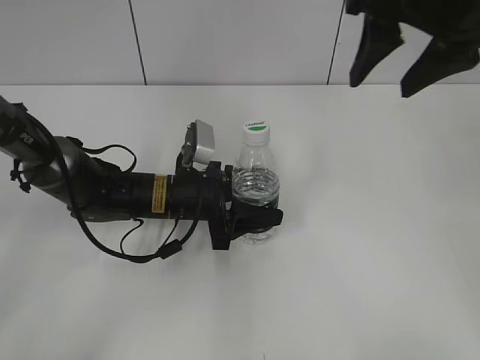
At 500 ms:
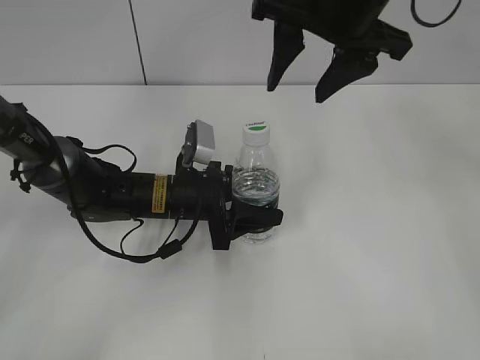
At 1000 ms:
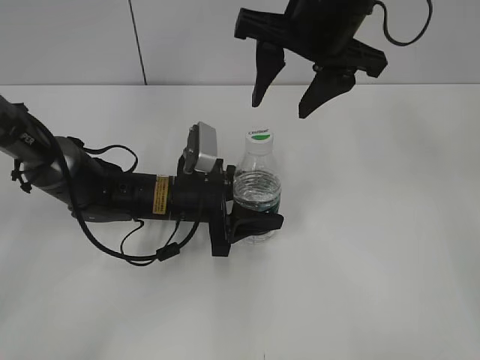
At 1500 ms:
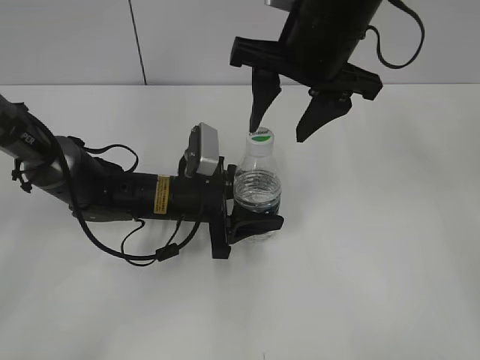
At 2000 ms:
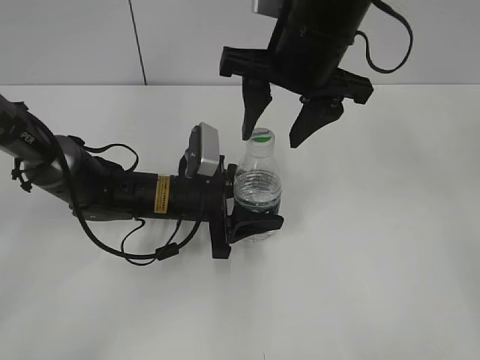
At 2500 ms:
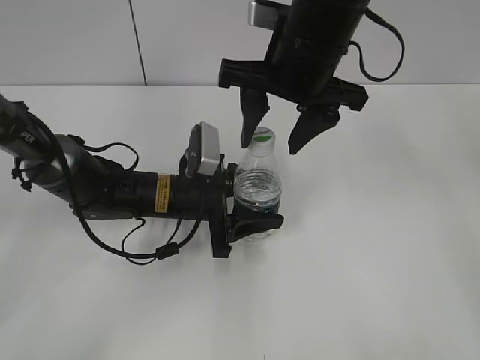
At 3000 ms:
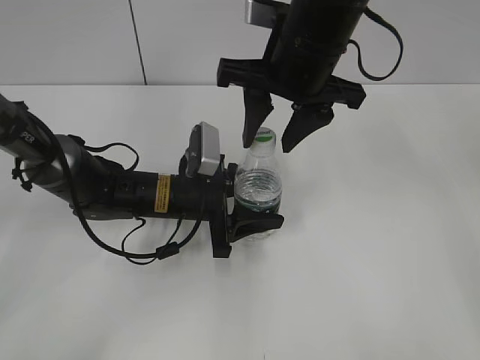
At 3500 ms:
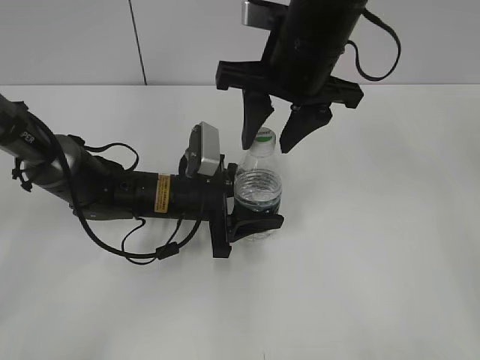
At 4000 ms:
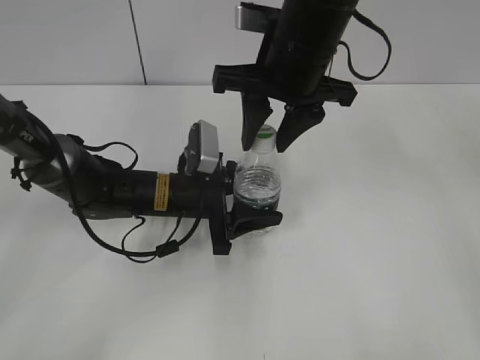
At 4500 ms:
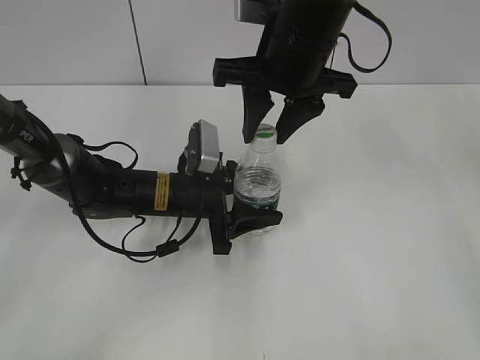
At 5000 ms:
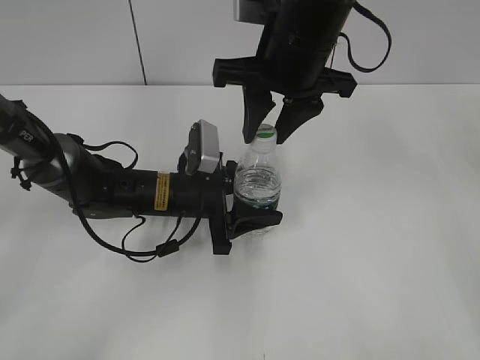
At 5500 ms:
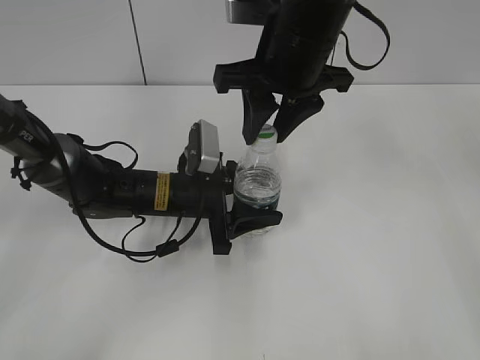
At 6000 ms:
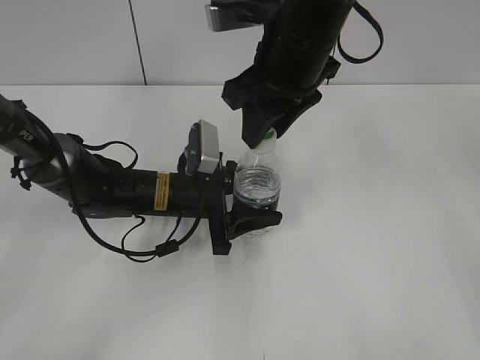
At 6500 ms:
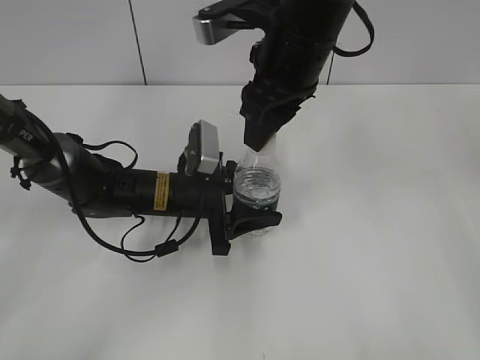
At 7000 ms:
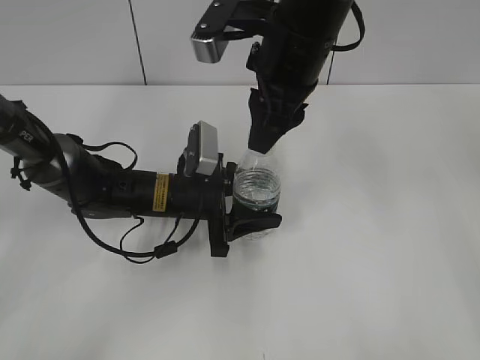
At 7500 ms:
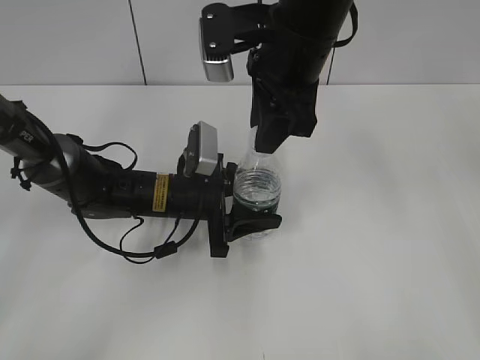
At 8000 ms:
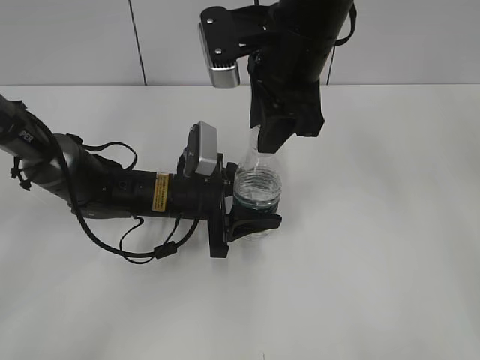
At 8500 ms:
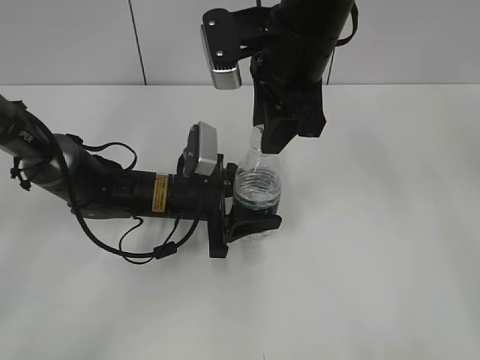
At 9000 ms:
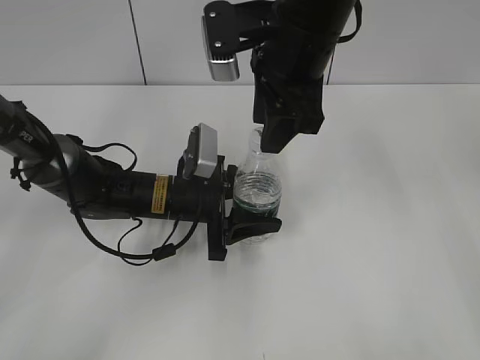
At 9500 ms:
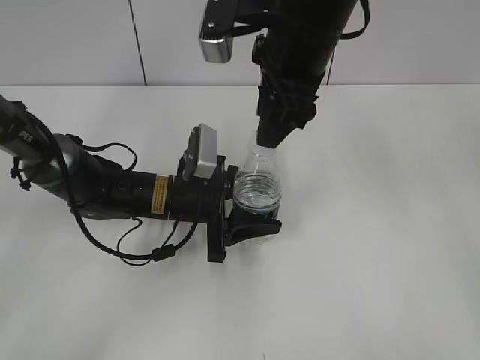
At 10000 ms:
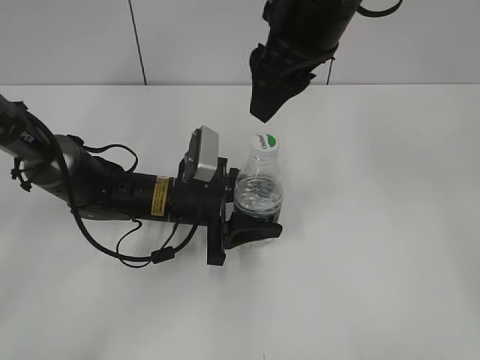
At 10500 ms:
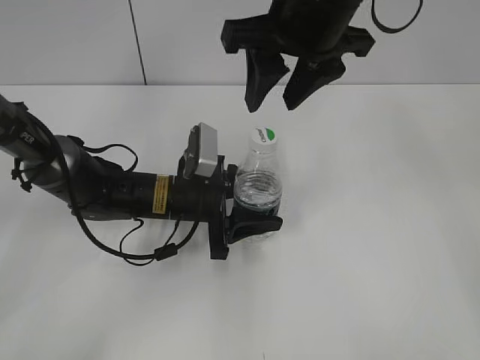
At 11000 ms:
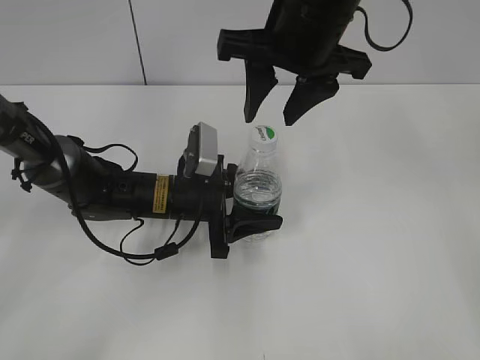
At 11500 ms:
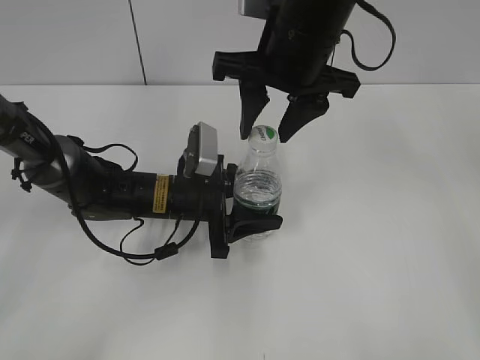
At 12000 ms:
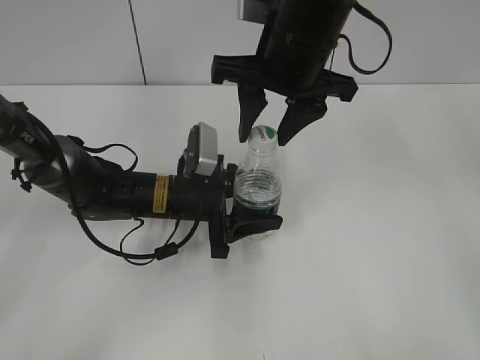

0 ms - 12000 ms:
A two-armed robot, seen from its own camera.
0 ms - 2000 ms: The right gripper moves to the left and downward, some 10 cm.
2000 ms - 4000 ms: The right gripper closes.
8000 ms - 10000 ms: The right gripper opens its fingers.

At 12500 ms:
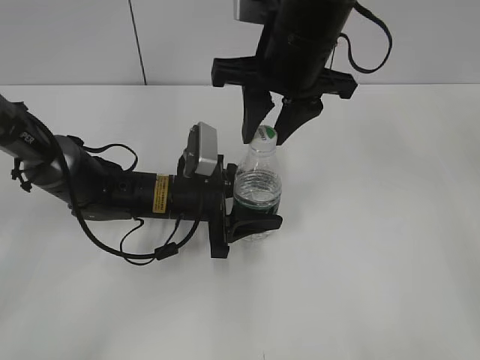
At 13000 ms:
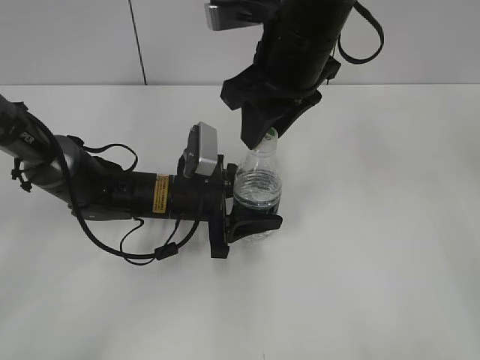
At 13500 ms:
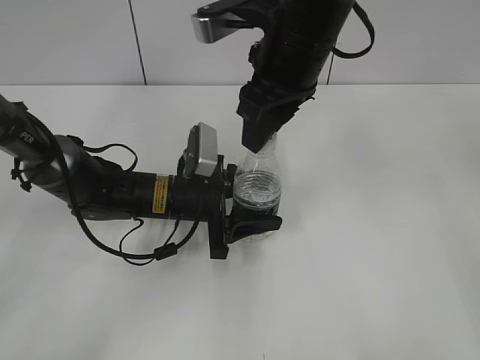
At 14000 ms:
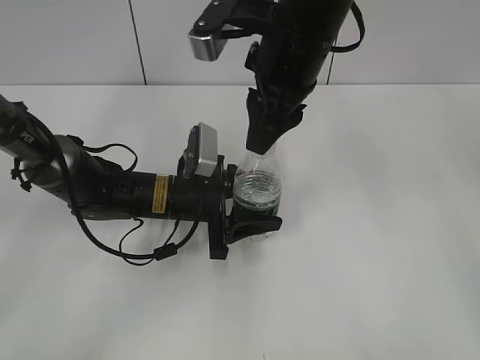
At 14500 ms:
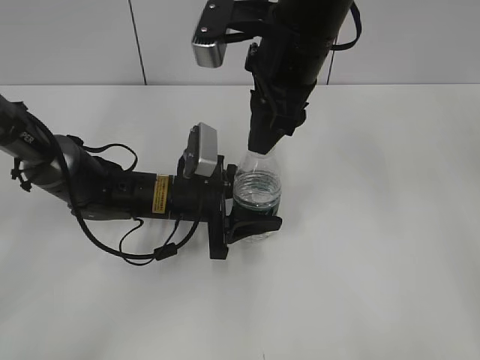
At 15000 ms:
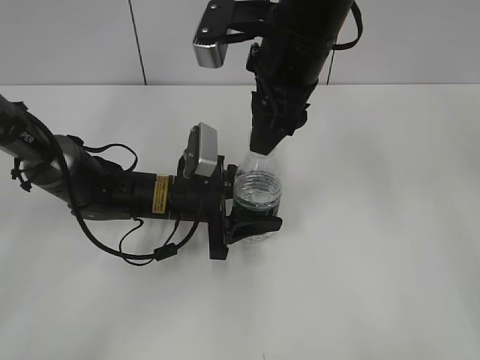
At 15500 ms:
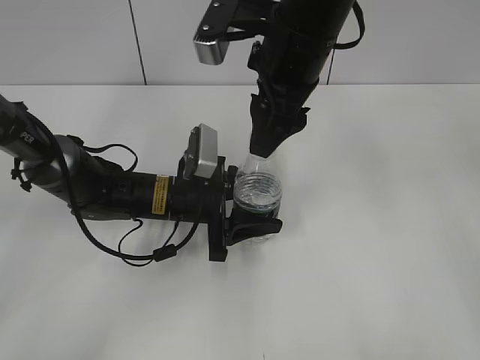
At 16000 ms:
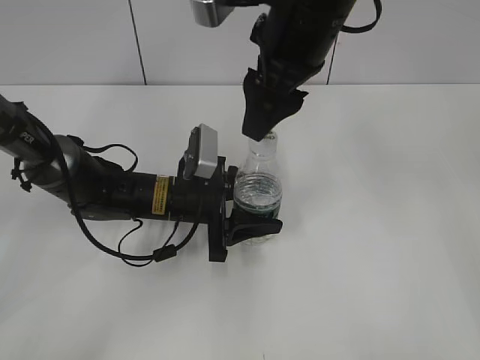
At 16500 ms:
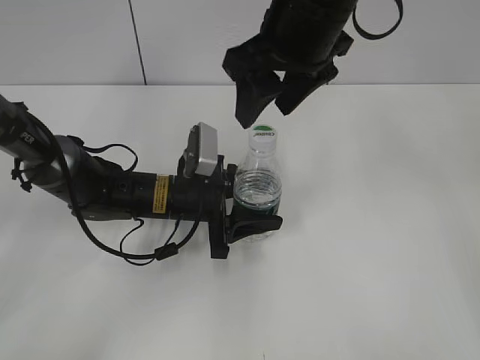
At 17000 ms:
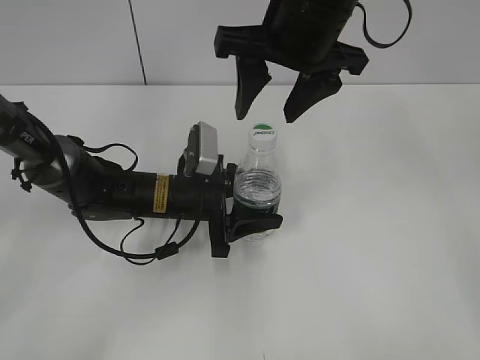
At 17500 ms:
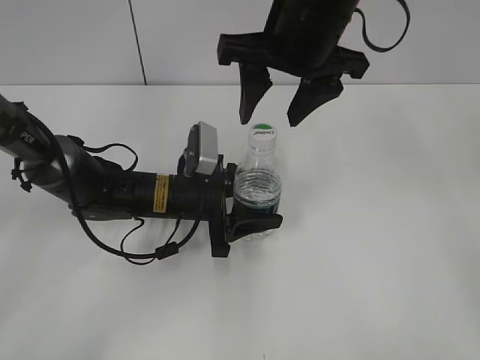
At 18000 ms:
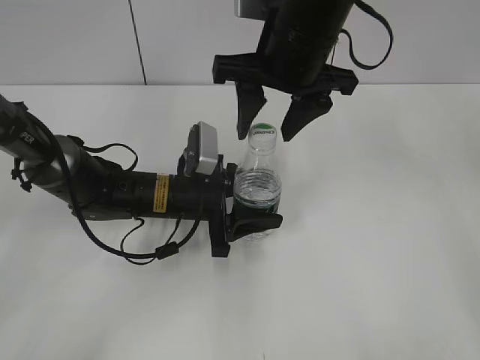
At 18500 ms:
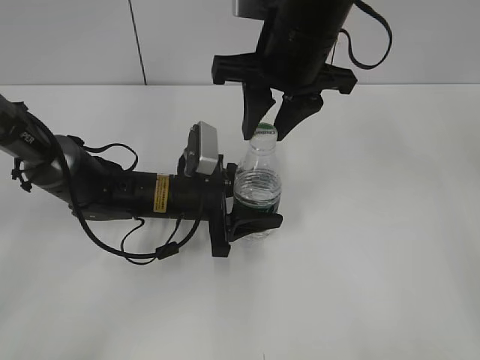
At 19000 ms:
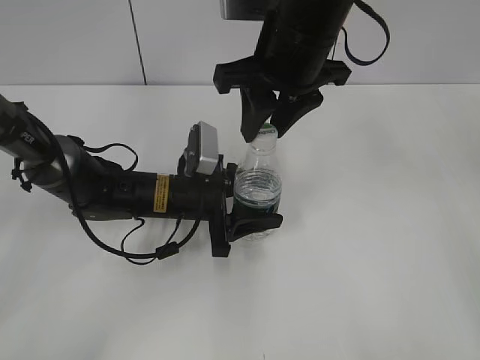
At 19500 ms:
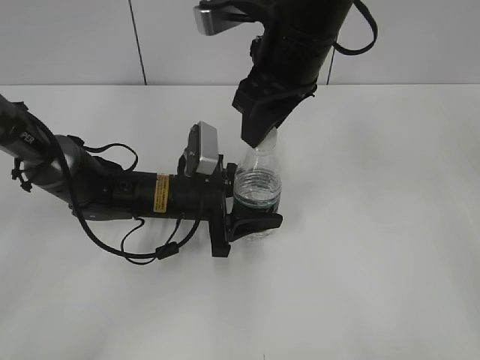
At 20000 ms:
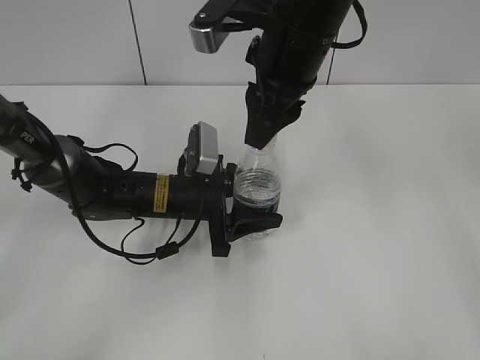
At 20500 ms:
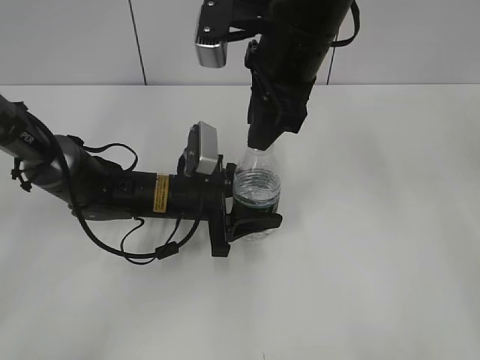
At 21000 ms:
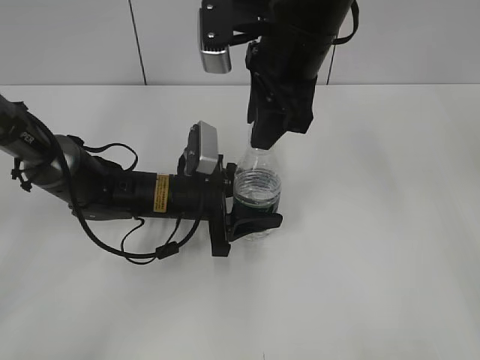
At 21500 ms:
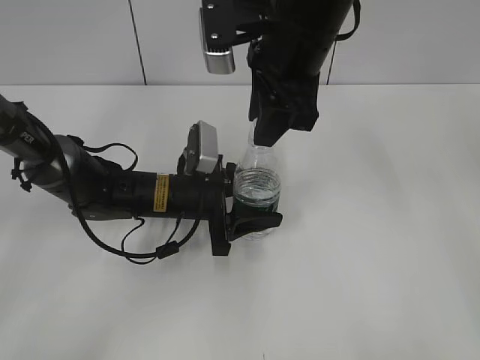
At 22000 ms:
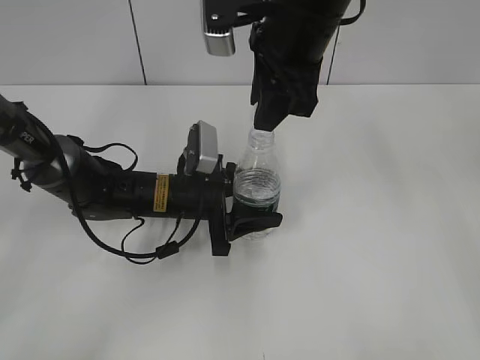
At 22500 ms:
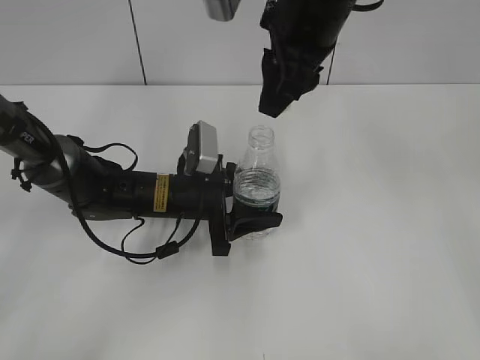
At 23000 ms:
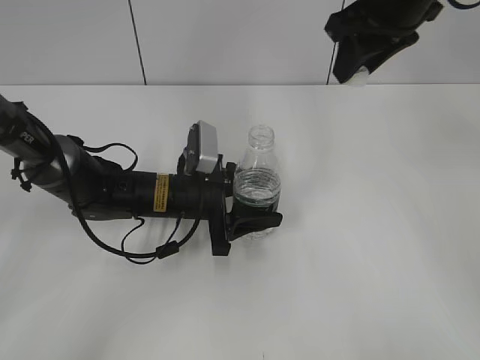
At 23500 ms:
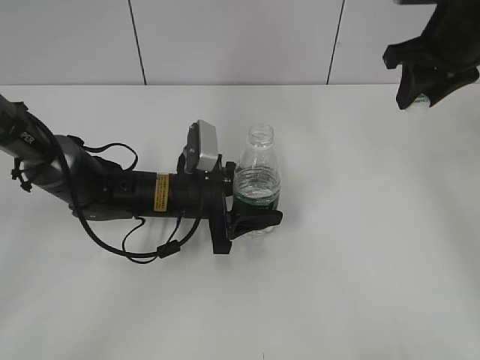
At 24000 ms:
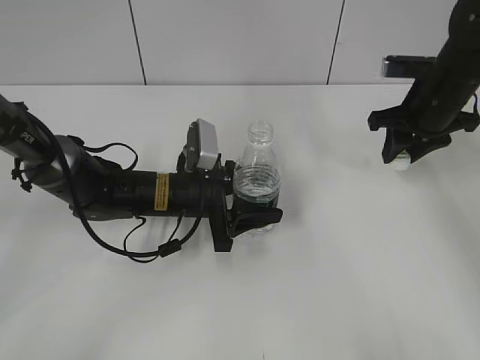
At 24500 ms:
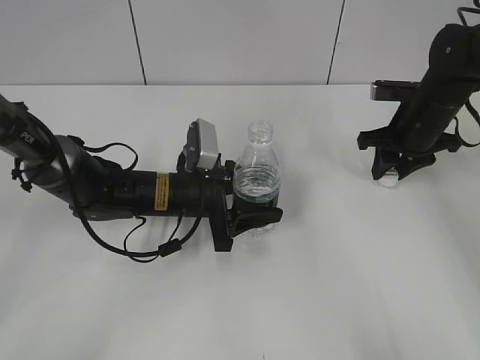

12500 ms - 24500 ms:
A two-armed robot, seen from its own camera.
Step, 12500 ms - 22000 ms: Unscrew the bottle cap with the right gripper while holding the bottle with the left gripper.
14500 ms - 16500 ms: The right gripper opens.
16500 ms - 18500 ms: The right gripper closes its fingers.
20500 ms - 22500 ms: The grippers make only small movements.
22500 ms - 24500 ms: The right gripper heads downward, to the right and forward, covering some 30 cm.

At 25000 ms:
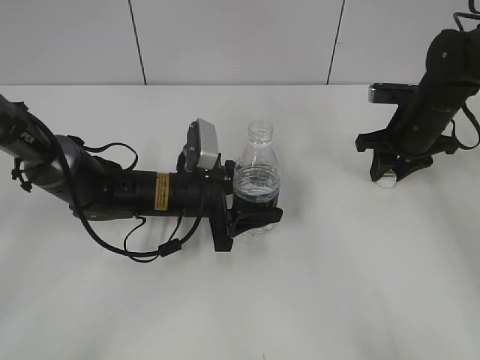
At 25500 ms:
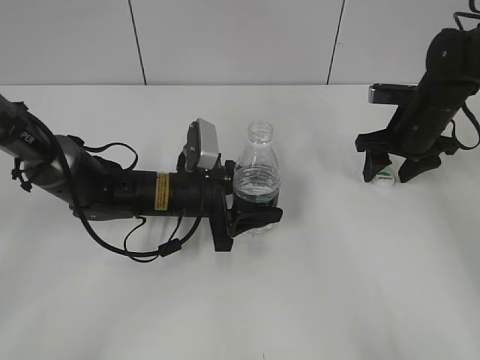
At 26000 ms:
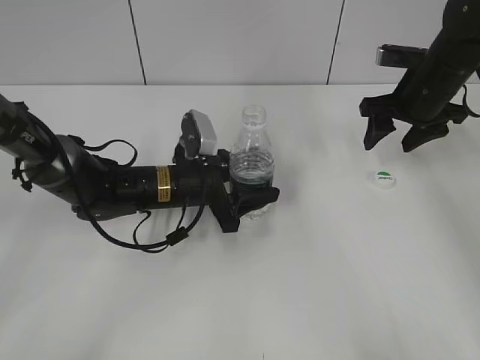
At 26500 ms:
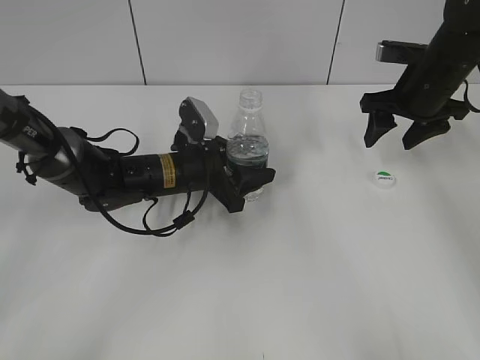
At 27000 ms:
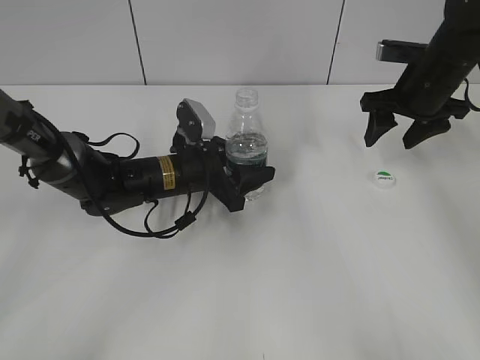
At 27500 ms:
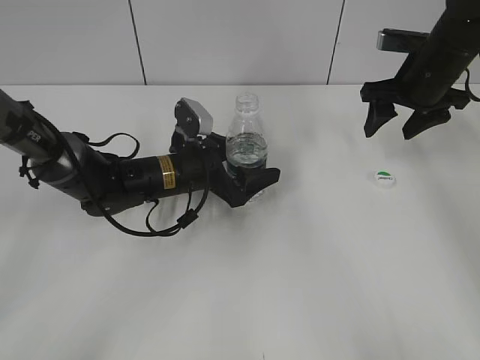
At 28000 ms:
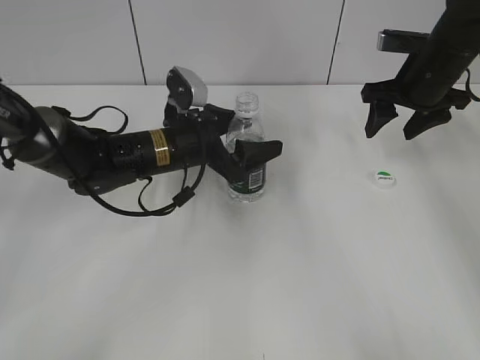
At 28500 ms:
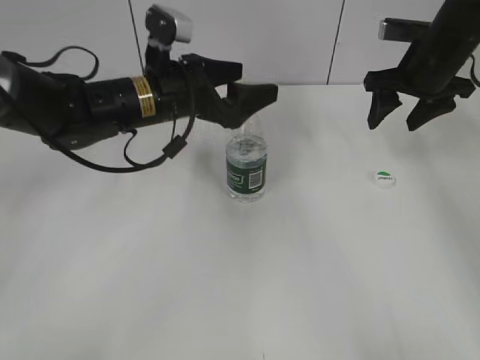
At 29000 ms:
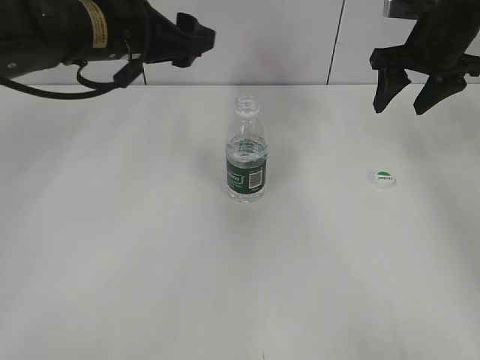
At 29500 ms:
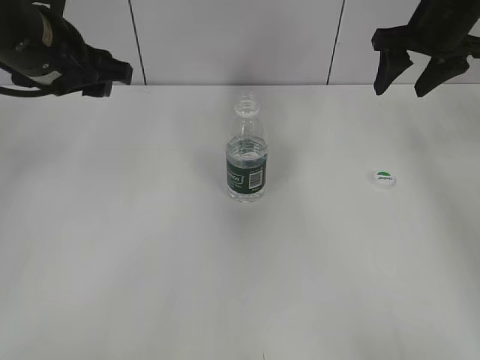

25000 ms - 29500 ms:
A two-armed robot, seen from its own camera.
Step, 26000 ms - 27500 ms: Place the bottle on the table with the left gripper.
25000 ms - 27000 ms: The right gripper shifts some 5 cm upward, and opens up.
27000 ms - 29500 ms: The right gripper goes approximately 10 cm upward. The left gripper heads upward and to the left, covering roughly 25 cm, and opens and closes again.
